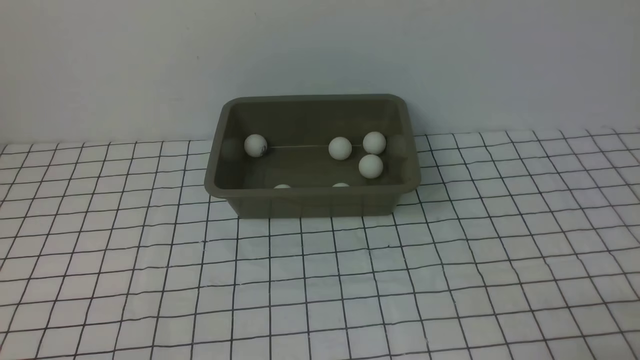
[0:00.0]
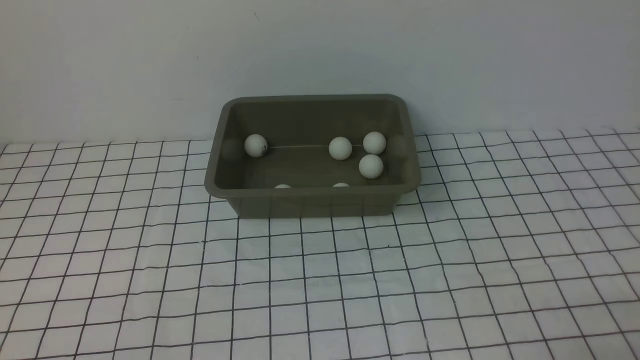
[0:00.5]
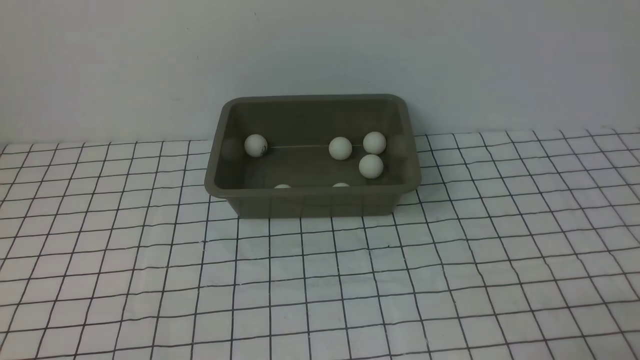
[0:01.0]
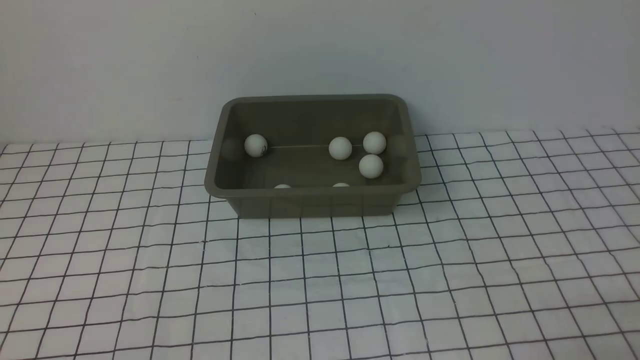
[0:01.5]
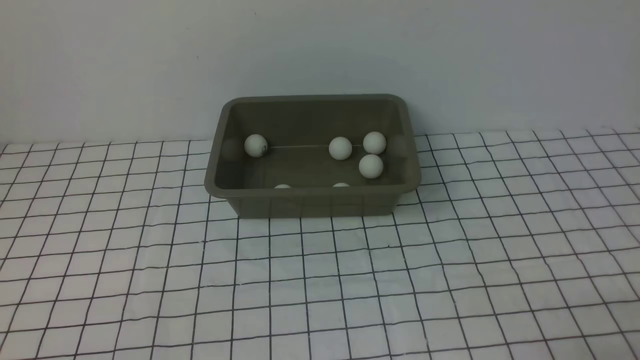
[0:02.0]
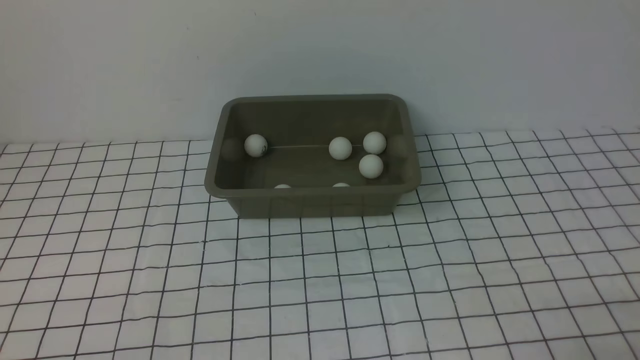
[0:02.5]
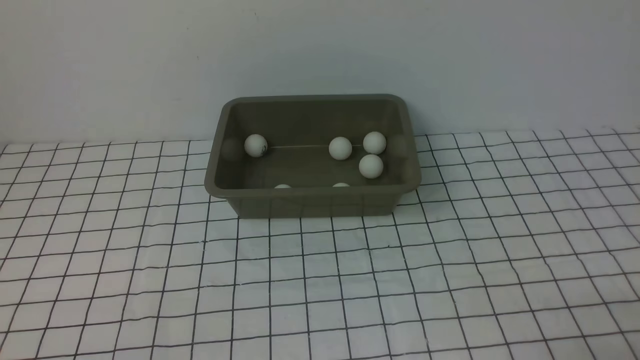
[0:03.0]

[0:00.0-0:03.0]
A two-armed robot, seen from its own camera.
0:00.0 to 0:03.0: Both grippers stay about where they are.
